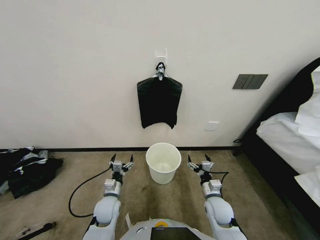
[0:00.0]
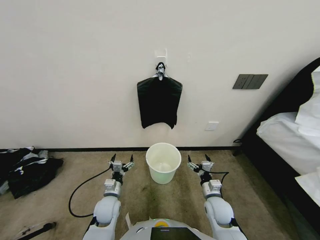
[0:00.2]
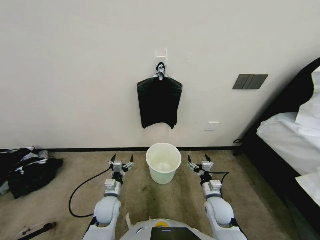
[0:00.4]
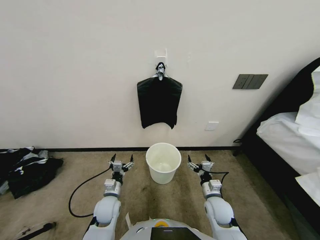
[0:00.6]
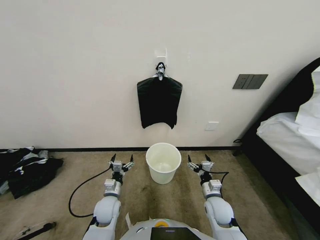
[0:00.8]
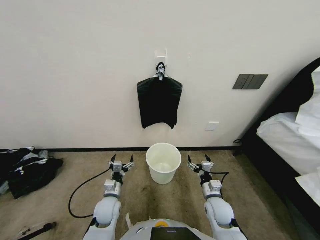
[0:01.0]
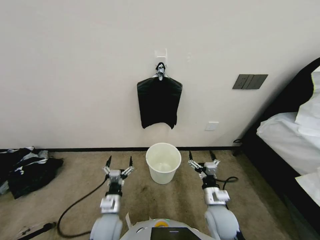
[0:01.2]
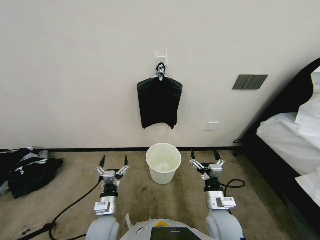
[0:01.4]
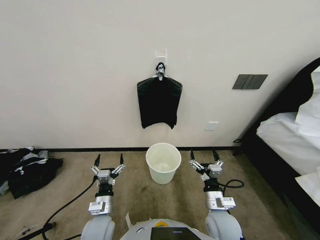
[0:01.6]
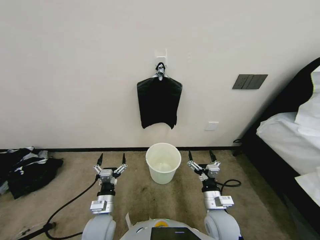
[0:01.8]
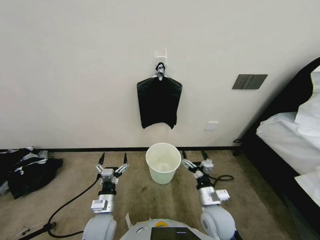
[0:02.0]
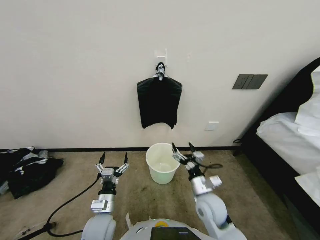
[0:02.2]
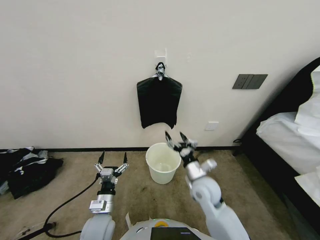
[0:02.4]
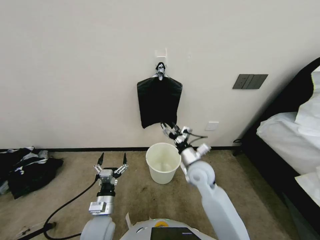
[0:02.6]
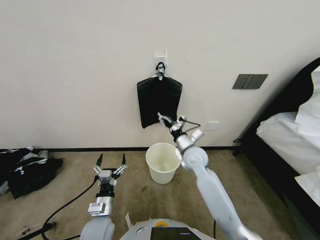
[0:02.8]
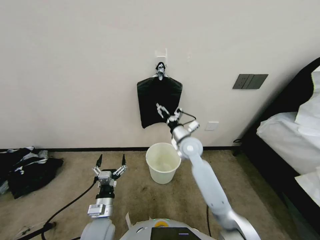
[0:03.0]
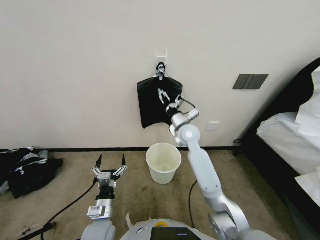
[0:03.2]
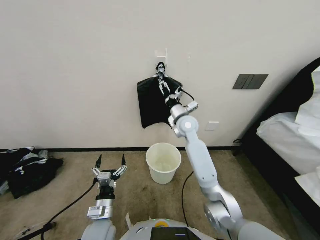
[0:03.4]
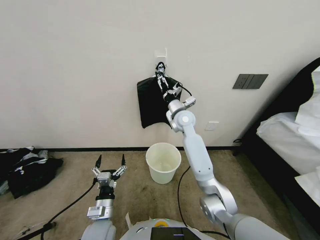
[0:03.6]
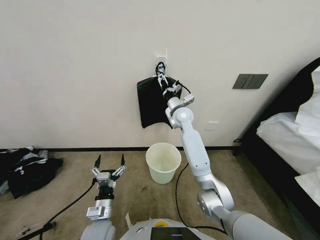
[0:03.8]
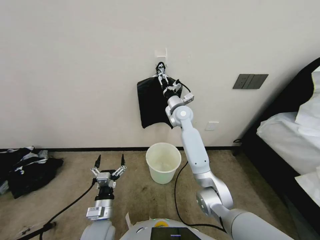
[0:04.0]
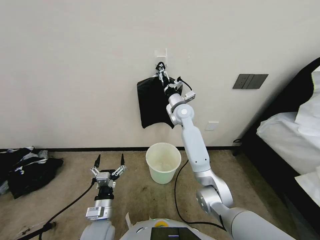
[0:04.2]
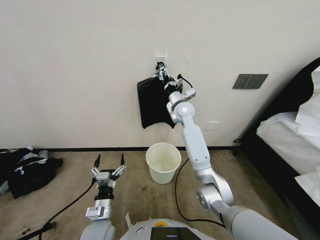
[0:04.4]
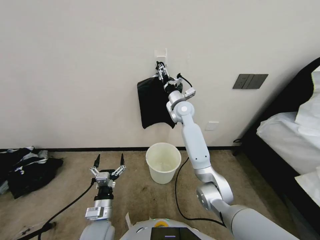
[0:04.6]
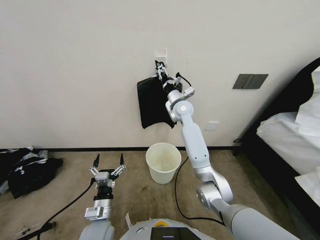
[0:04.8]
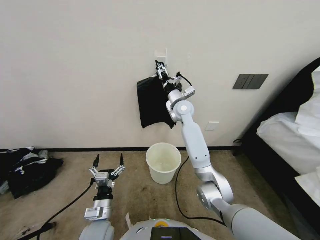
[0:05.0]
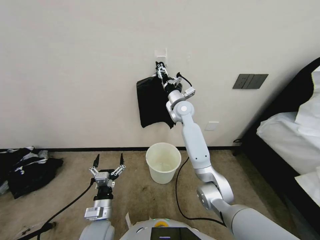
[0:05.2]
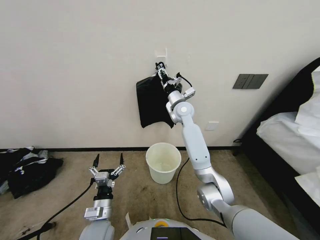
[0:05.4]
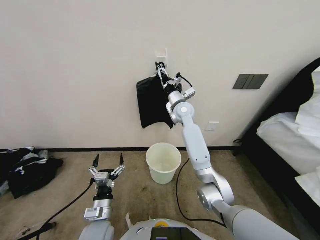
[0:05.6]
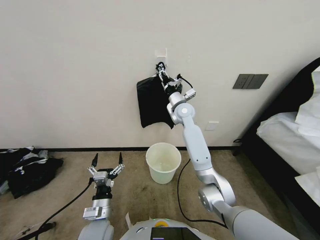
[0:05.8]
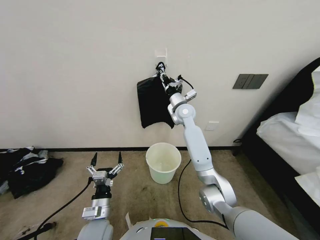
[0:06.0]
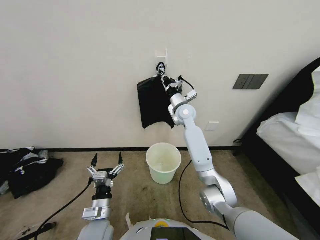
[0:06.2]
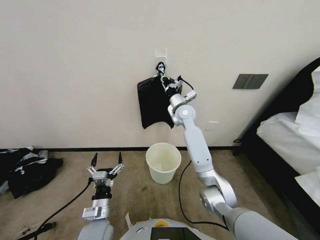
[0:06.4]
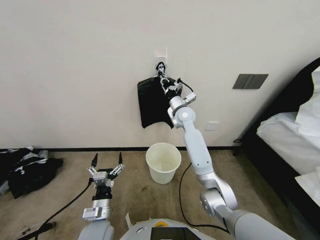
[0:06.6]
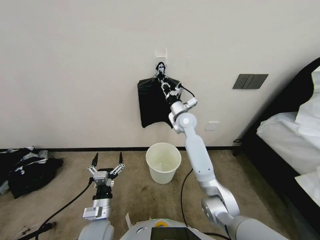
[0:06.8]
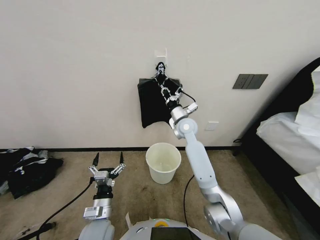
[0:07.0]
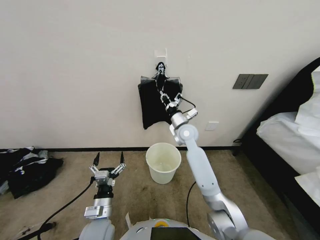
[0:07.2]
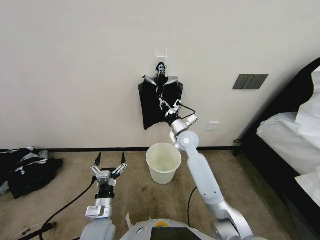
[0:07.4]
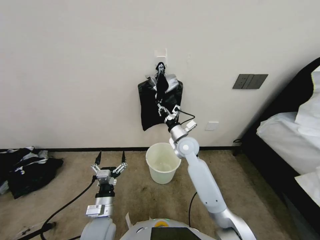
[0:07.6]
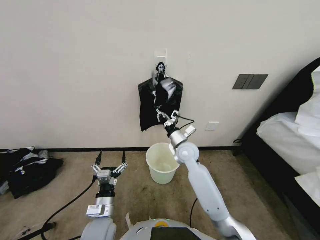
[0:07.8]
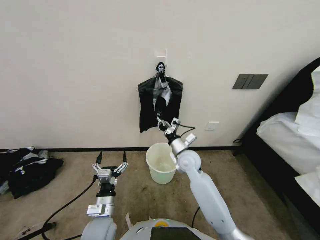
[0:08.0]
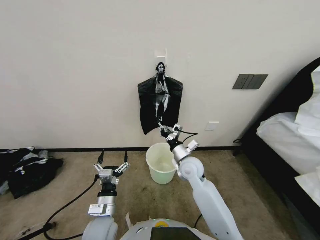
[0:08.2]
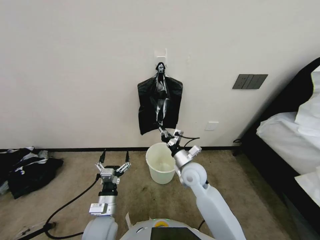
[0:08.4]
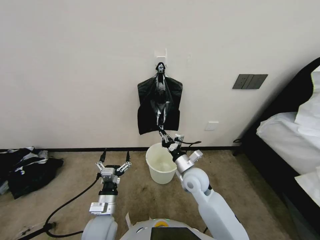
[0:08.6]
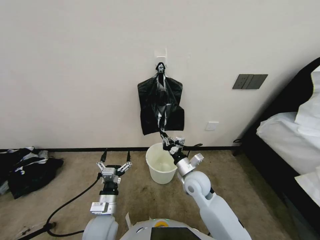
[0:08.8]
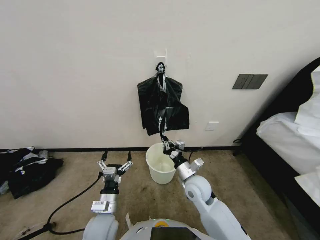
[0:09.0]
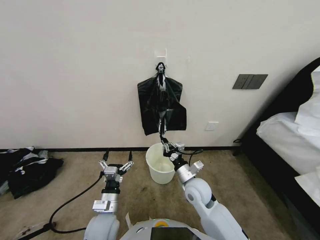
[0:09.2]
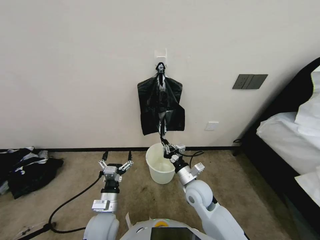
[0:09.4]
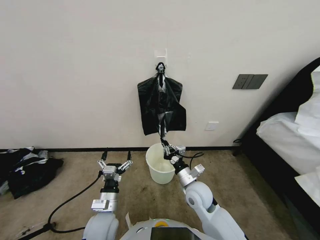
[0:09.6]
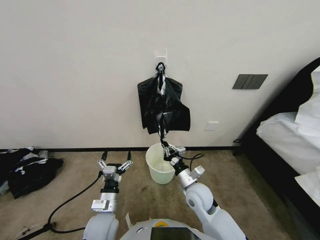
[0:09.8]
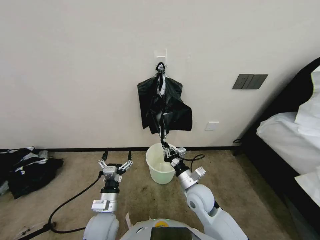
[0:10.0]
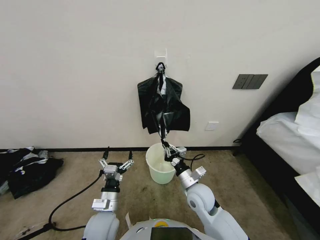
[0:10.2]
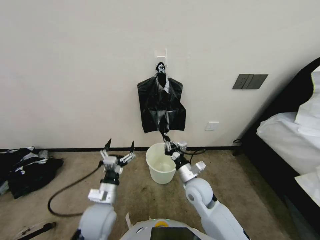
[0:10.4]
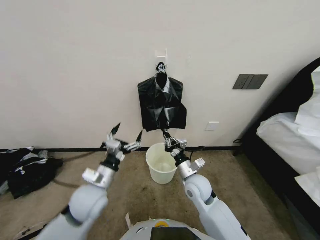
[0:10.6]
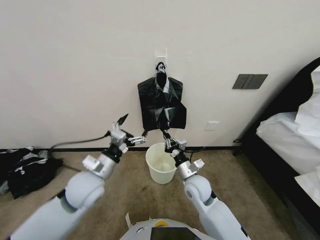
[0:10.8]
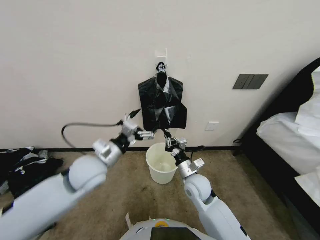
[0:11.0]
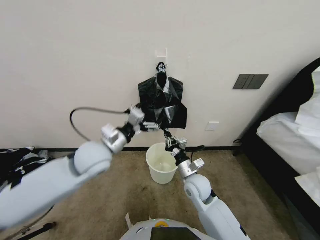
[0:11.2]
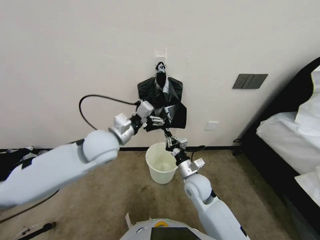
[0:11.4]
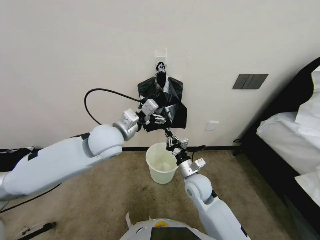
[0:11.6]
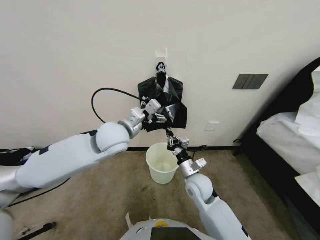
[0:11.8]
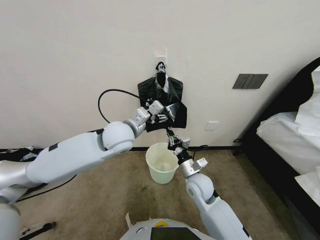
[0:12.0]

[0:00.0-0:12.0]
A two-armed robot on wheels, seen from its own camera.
Task of the whole recording: Place a trash bag onto the trash bin.
0:01.6 to 0:03.0: The right gripper heads forward and upward, covering some 25 cm.
0:03.0 to 0:04.4: The right gripper goes some 20 cm forward and upward.
0:04.4 to 0:06.0: The right gripper closes up.
0:06.0 to 0:07.6: The right gripper shifts roughly 15 cm backward and downward.
0:07.6 to 0:09.0: The right gripper travels backward and downward by roughly 15 cm.
0:09.0 to 0:10.4: There are only small adjustments of the grippers.
0:10.4 to 0:12.0: The left gripper is displaced upward and forward by some 30 cm.

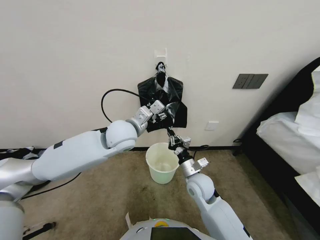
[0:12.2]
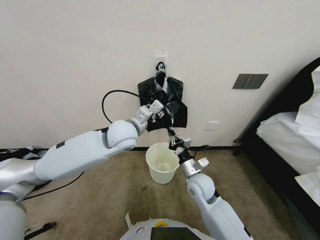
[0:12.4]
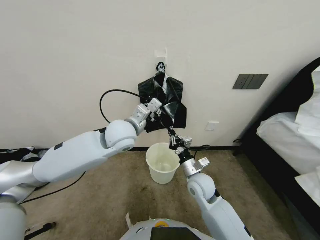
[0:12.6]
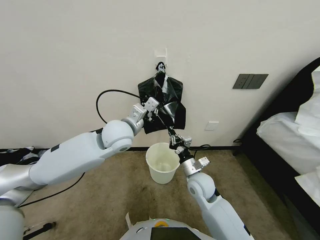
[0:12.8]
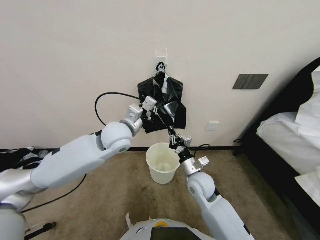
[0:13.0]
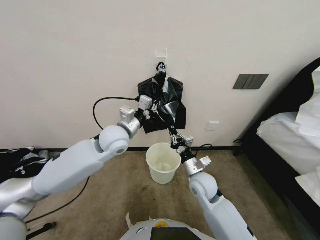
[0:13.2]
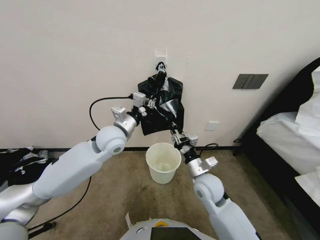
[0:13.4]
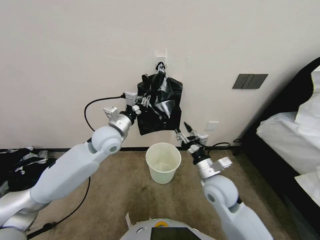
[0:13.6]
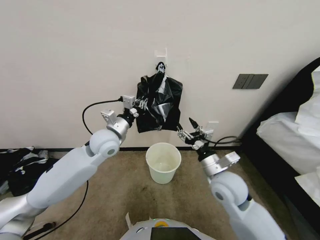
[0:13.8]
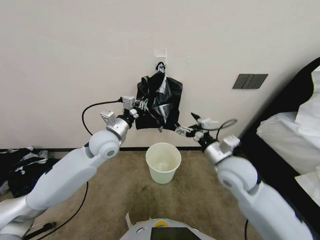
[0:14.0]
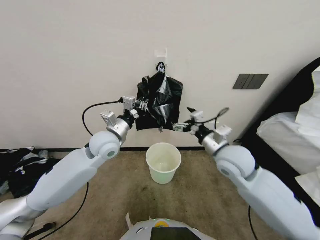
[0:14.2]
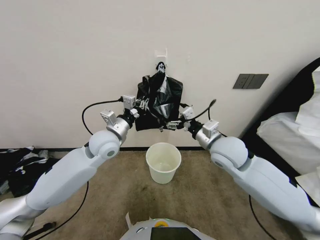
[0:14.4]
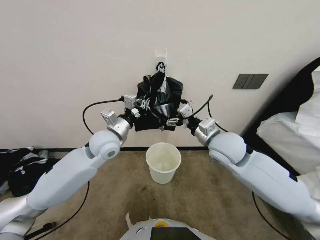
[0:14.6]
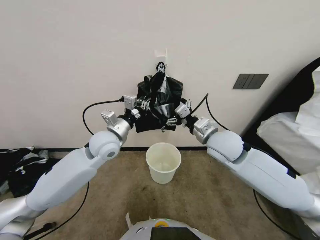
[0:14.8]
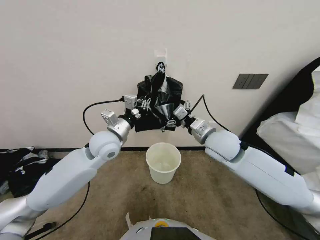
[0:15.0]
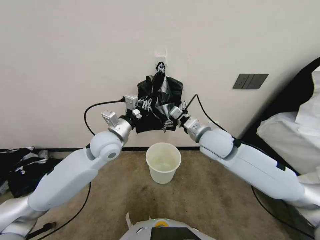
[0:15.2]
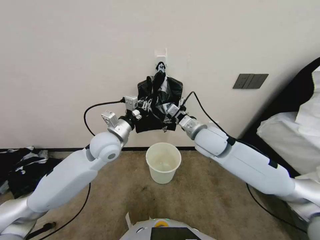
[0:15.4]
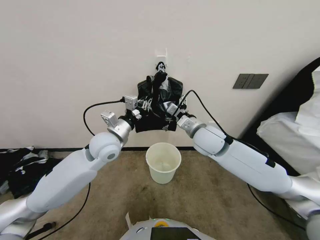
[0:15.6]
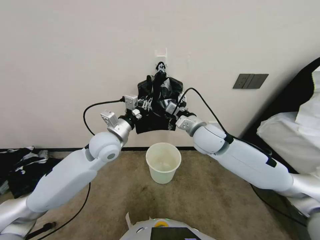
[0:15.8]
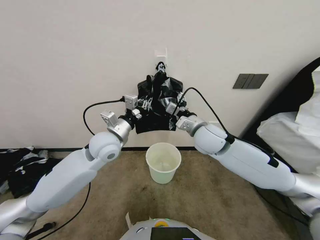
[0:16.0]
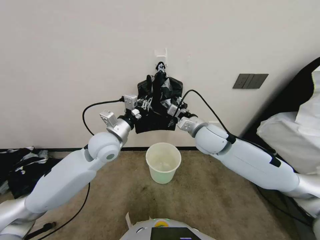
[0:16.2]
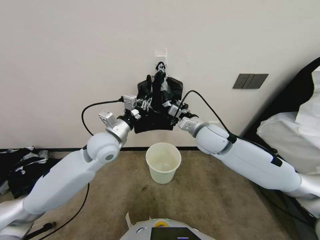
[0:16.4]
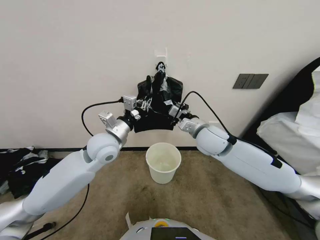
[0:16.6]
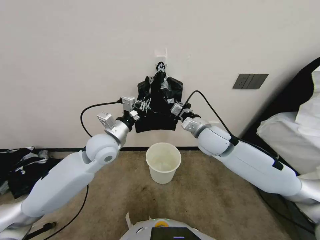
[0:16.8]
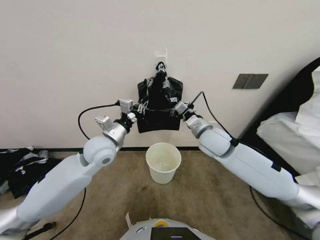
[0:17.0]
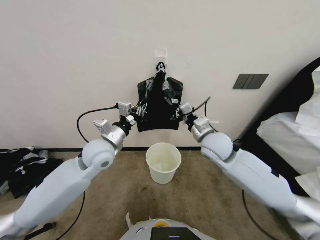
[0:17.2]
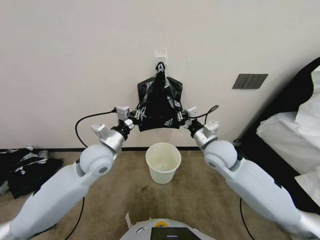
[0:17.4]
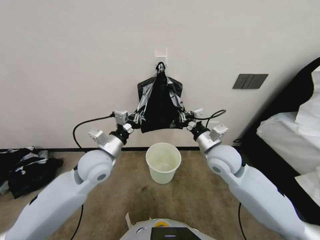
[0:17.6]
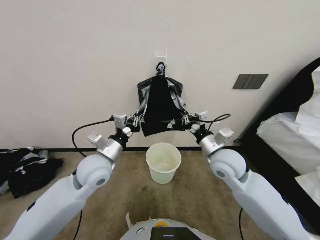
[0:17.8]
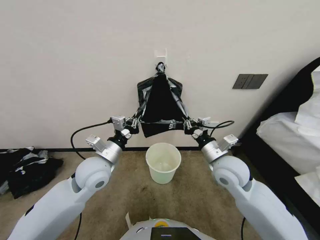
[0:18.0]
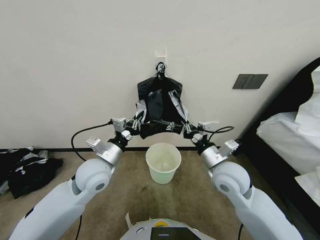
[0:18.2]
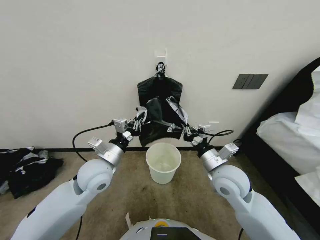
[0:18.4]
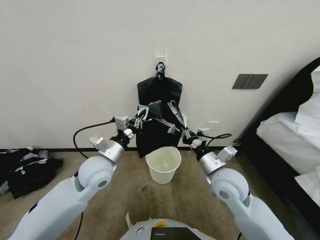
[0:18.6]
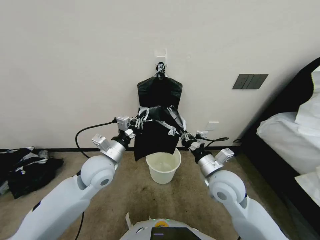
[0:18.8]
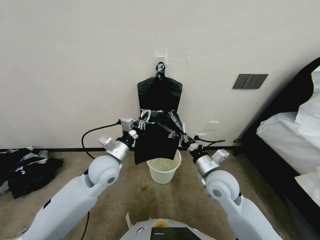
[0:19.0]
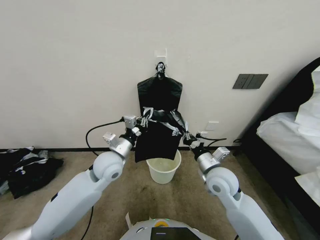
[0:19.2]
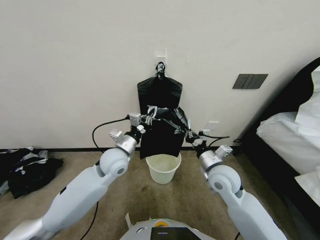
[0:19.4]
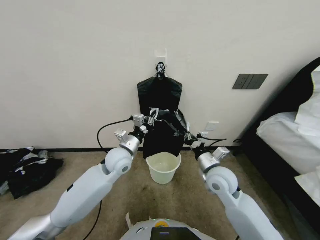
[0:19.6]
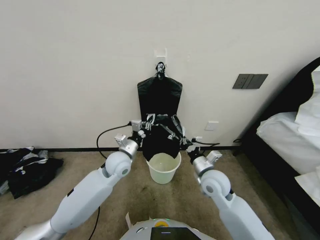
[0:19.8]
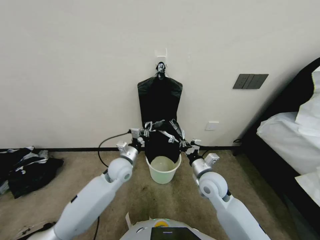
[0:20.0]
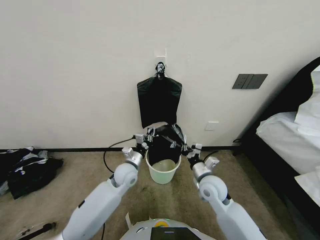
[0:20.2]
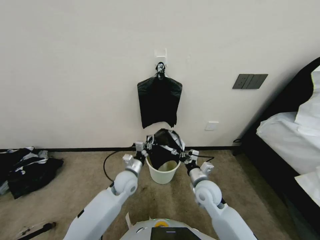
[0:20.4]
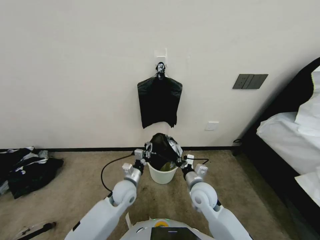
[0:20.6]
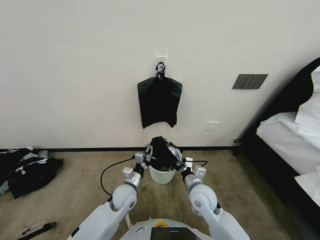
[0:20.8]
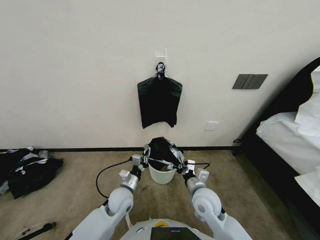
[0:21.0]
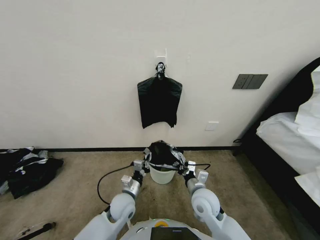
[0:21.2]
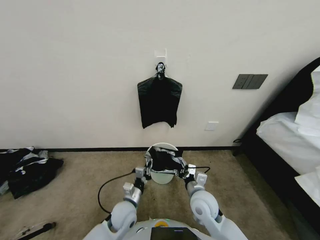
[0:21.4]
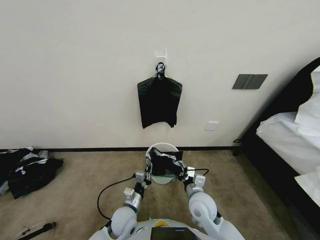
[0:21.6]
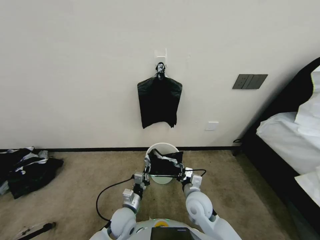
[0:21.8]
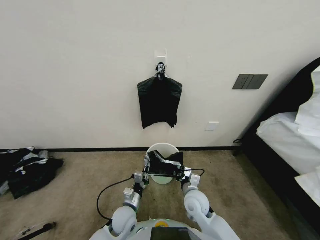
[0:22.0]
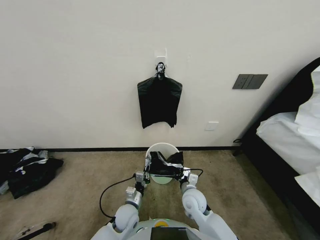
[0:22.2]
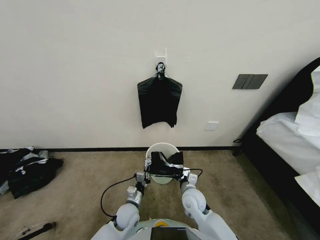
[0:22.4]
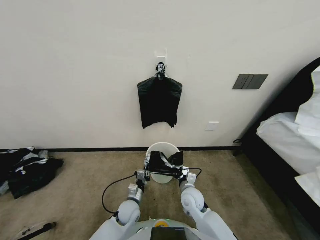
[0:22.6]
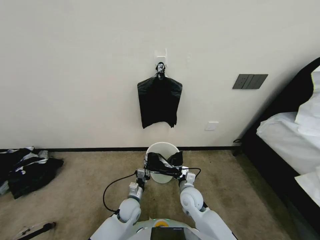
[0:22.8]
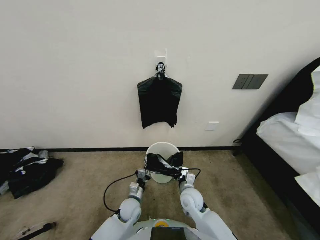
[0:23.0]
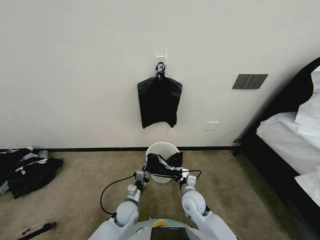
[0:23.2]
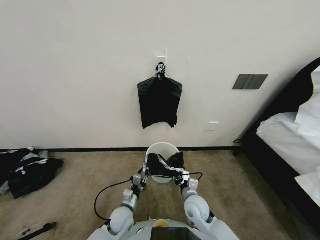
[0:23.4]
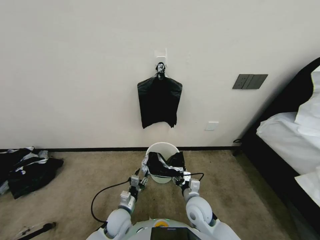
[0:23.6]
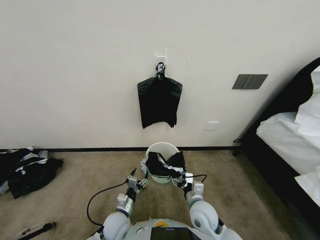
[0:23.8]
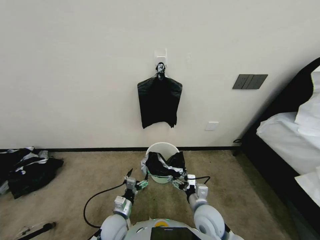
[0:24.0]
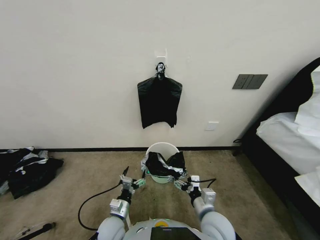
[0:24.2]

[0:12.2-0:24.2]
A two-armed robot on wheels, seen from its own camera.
Task of the whole recording: Place a trash bag onto the trash bin.
0:12.2 to 0:13.8: The right gripper is displaced upward by approximately 5 cm, and opens, while the left gripper moves to the left, roughly 5 cm, and closes.
0:13.8 to 0:15.2: The right gripper travels upward and forward by about 15 cm, and opens.
0:15.2 to 0:16.6: The right gripper closes its fingers.
0:16.6 to 0:18.2: The right gripper shifts some 10 cm backward and downward. Meanwhile the left gripper shifts approximately 5 cm backward.
0:18.2 to 0:19.8: The right gripper moves downward, about 5 cm, while the left gripper moves forward, approximately 5 cm.
0:19.8 to 0:21.2: The right gripper is displaced downward and backward by roughly 10 cm; the left gripper is displaced downward and backward by roughly 20 cm.
0:21.2 to 0:22.6: Both grippers travel together downward, approximately 10 cm.
0:22.6 to 0:24.2: The left gripper shifts some 5 cm backward, and opens. Meanwhile the right gripper heads backward and upward, covering about 10 cm, and opens.
